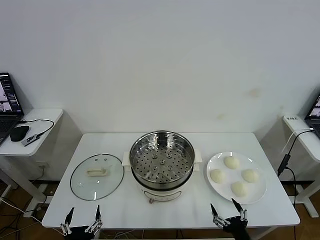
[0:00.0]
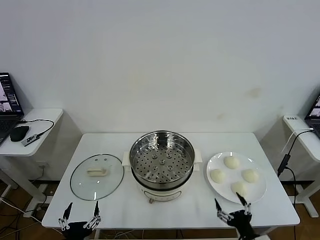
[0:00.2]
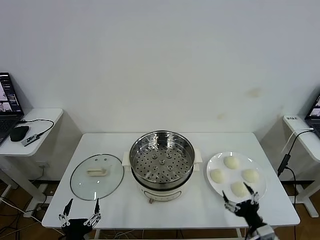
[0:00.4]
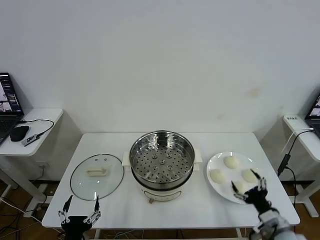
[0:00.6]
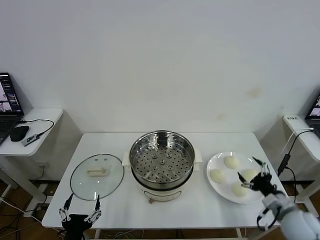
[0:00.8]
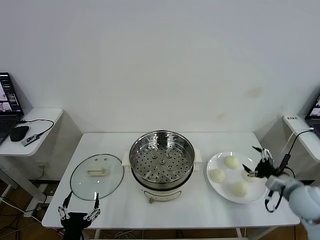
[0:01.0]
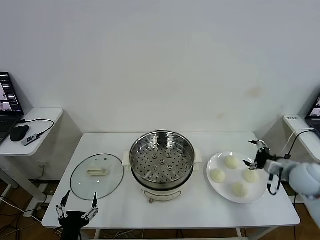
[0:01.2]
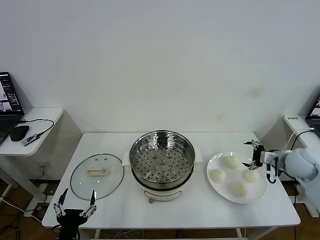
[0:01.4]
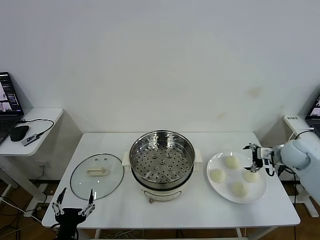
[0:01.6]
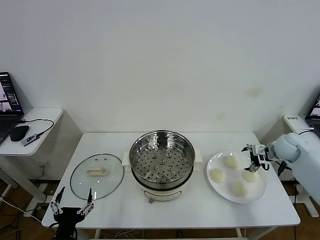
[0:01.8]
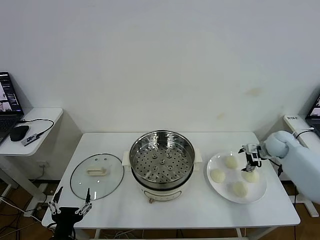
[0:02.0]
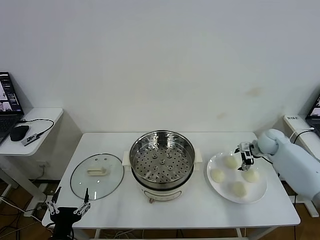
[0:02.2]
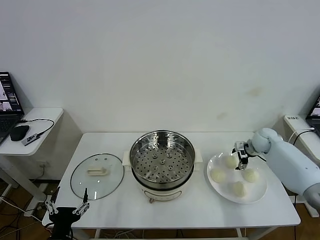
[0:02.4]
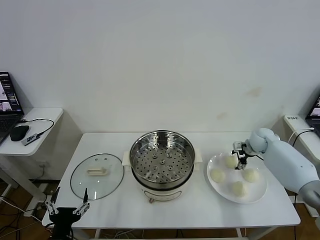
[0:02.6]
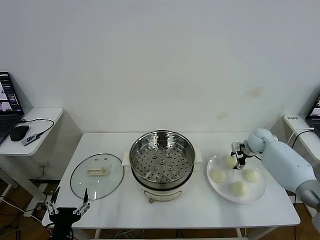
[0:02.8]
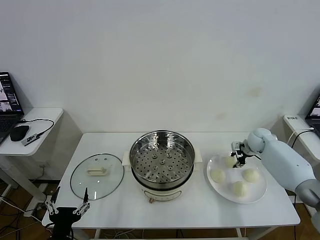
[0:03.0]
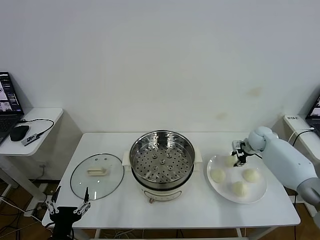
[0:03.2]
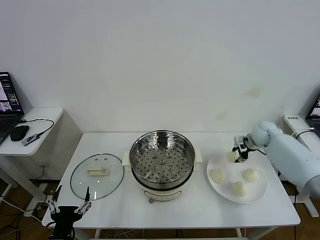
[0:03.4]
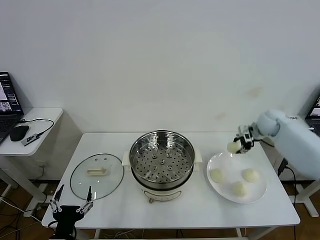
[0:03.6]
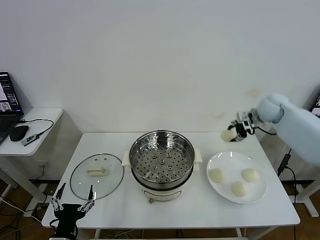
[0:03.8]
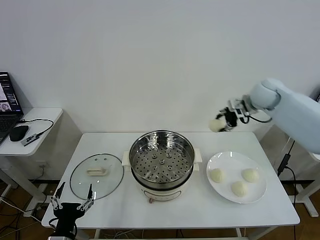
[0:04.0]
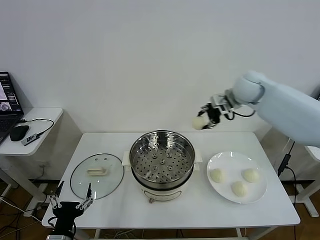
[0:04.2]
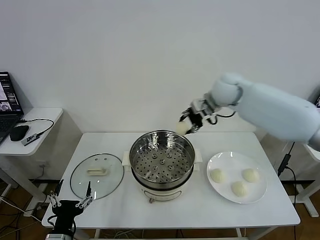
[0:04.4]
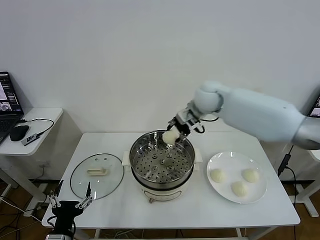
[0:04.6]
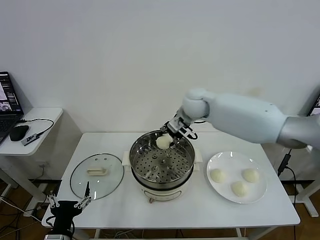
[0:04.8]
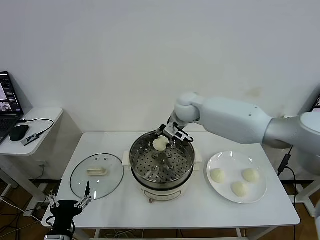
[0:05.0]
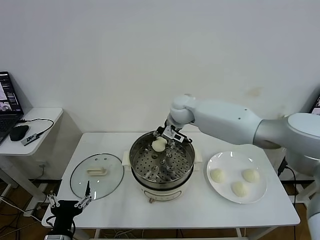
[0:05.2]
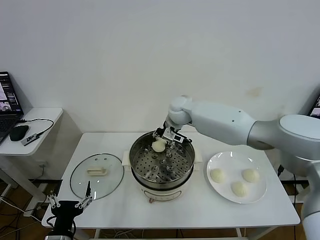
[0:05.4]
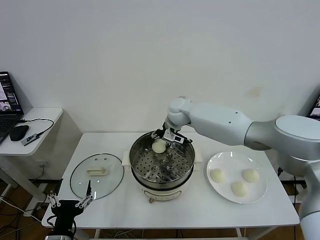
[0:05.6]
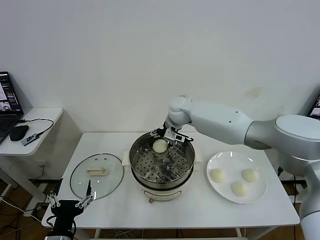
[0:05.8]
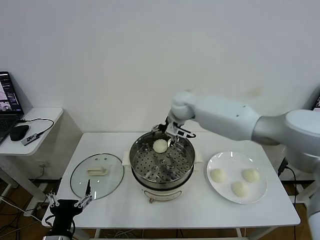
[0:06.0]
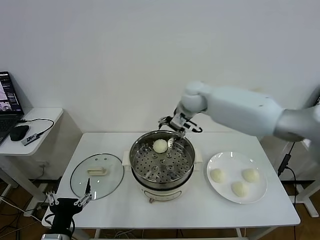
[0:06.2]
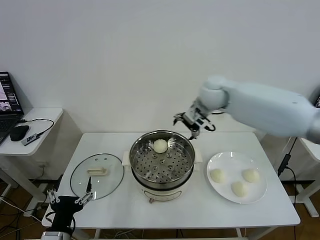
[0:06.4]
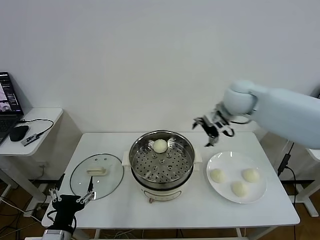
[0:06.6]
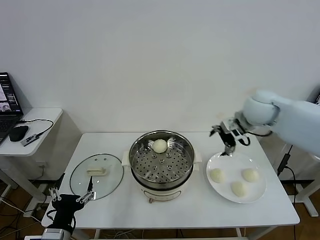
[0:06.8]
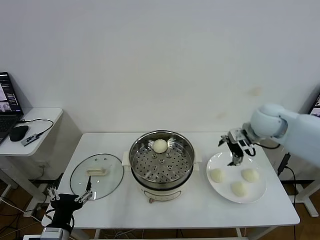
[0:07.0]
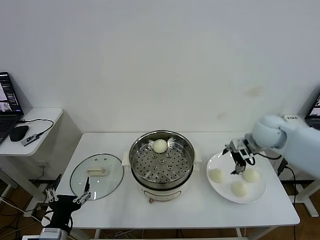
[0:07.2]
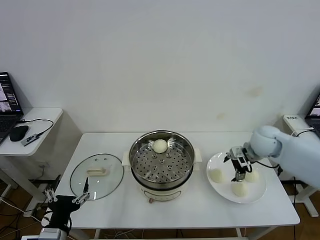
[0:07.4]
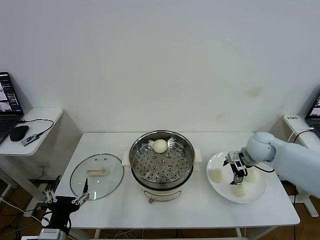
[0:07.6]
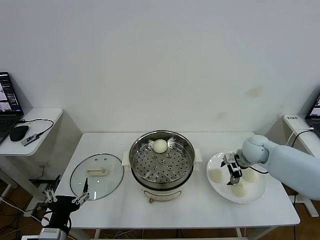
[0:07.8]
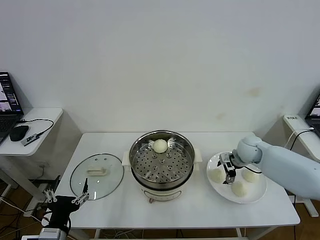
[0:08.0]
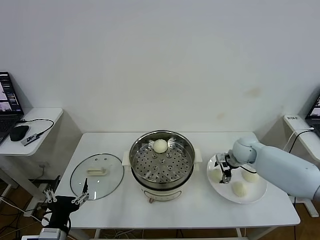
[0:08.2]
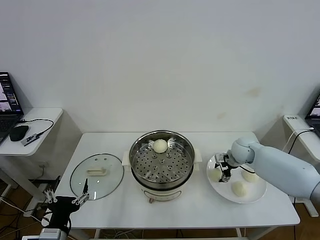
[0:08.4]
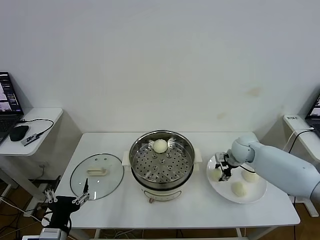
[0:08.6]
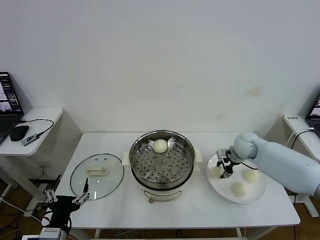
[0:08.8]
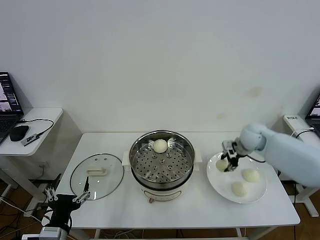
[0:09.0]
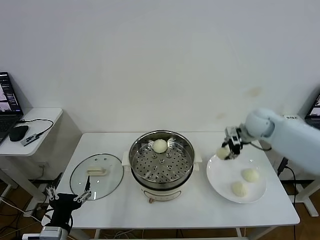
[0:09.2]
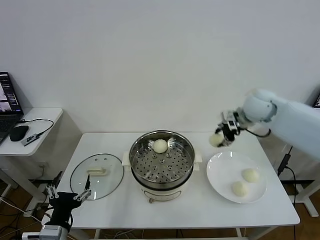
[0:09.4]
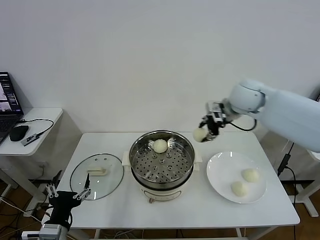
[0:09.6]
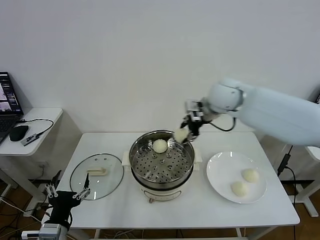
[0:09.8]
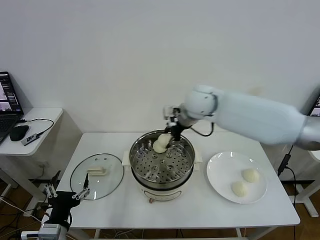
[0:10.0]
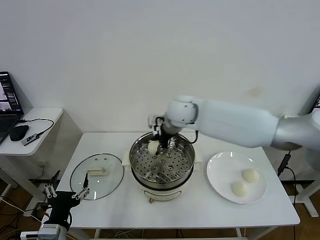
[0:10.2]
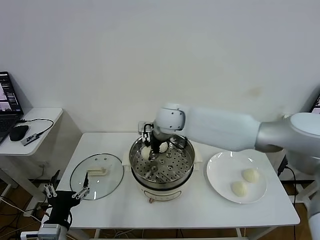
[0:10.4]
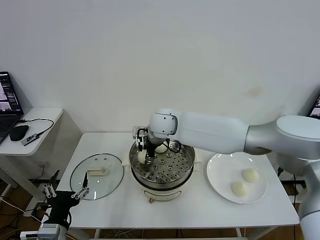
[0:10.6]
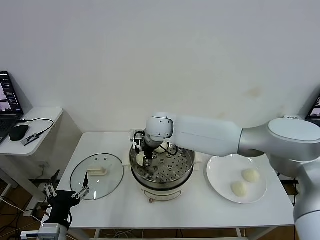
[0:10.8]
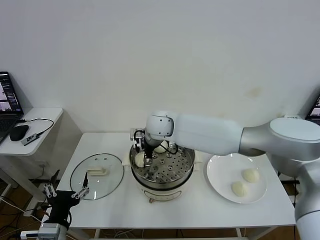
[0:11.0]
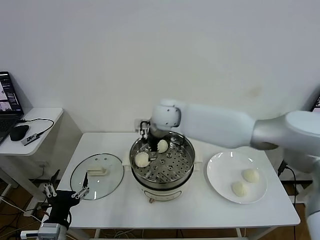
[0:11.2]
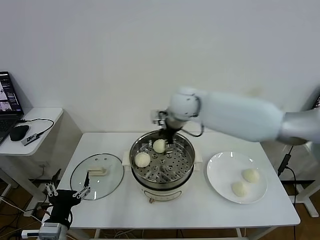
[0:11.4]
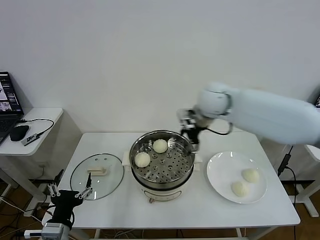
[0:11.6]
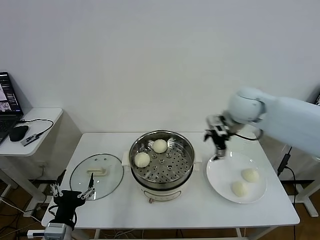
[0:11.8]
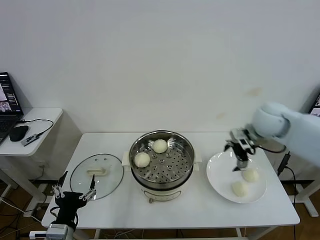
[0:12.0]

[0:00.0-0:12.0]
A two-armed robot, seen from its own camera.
Task of the whole recording: take steamed baozi put them in steamer then cover it.
Step, 0:00.0 to 0:02.8: Grasp the baozi in the plate with right gripper.
Step, 0:03.0 to 0:05.6: Place the baozi on the steamer with right gripper.
Step, 0:05.8 to 0:08.6: Grasp the baozi in the plate with right gripper.
Step, 0:08.8 to 0:11.0: Place the baozi on the steamer with right gripper.
0:01.6 to 0:03.0: The right gripper heads forward, downward and to the left, covering some 15 cm, and closes.
0:03.0 to 0:04.4: The right gripper moves upward and to the left, roughly 30 cm.
0:04.4 to 0:06.0: The right gripper moves to the left and downward, roughly 15 cm, and opens its fingers.
0:06.0 to 0:07.6: The right gripper goes approximately 30 cm to the right and backward.
0:07.6 to 0:09.0: The right gripper closes its fingers.
0:09.0 to 0:10.4: The right gripper shifts some 30 cm to the left.
0:10.4 to 0:12.0: The right gripper is displaced to the right by some 30 cm, and opens.

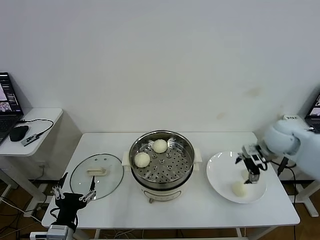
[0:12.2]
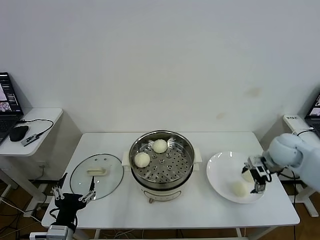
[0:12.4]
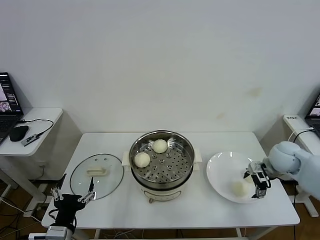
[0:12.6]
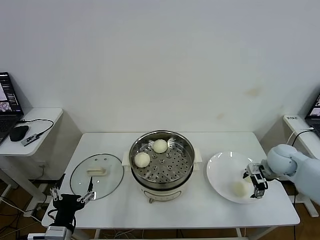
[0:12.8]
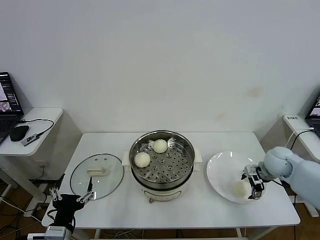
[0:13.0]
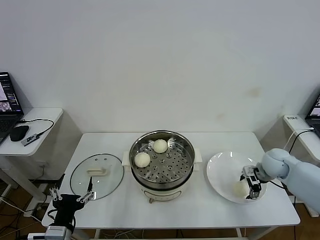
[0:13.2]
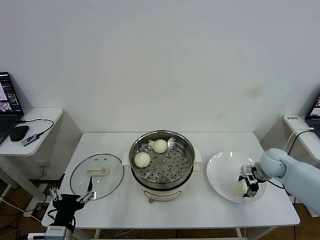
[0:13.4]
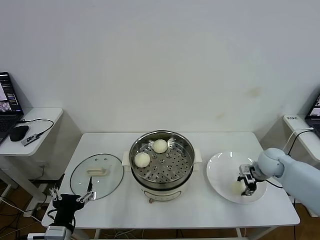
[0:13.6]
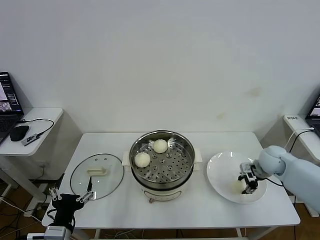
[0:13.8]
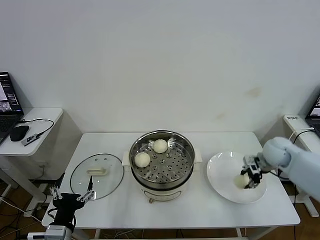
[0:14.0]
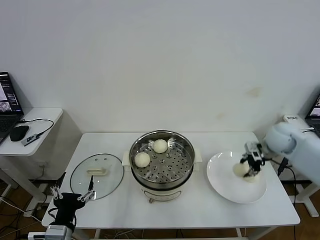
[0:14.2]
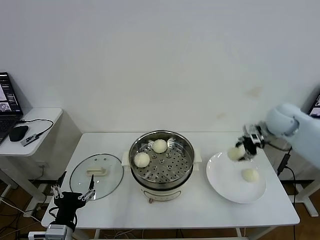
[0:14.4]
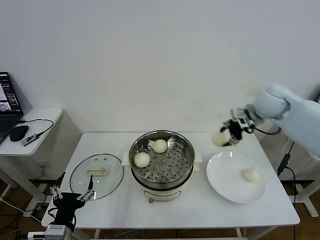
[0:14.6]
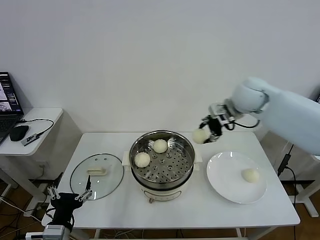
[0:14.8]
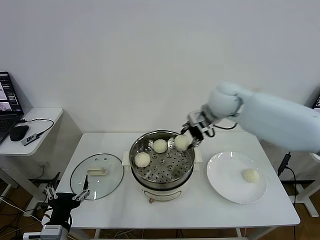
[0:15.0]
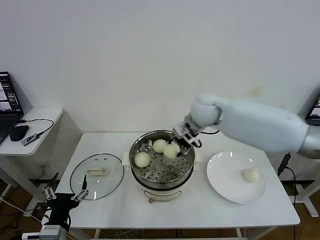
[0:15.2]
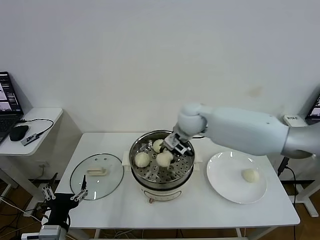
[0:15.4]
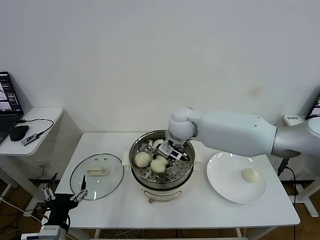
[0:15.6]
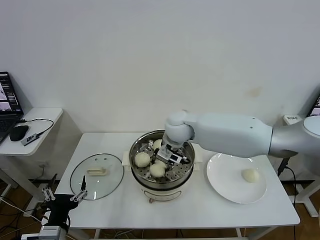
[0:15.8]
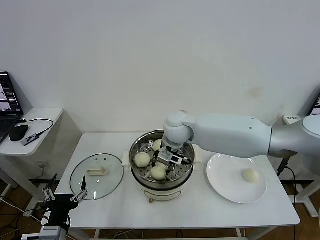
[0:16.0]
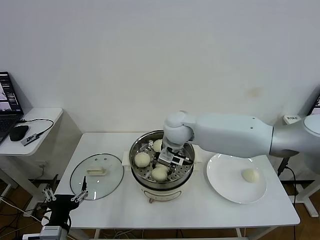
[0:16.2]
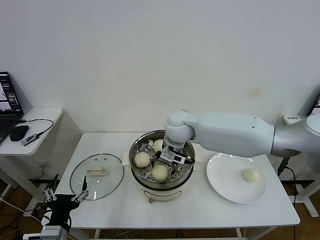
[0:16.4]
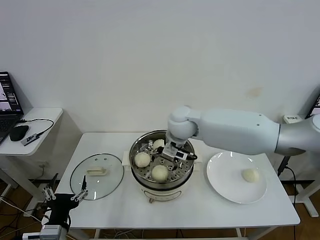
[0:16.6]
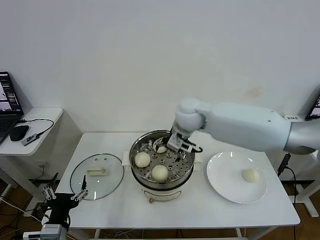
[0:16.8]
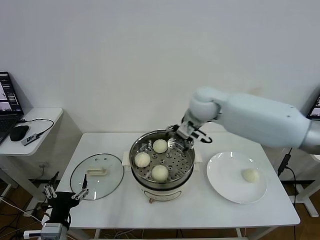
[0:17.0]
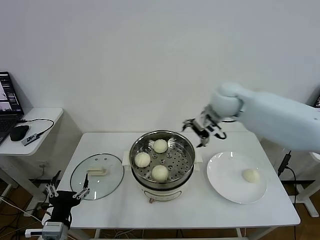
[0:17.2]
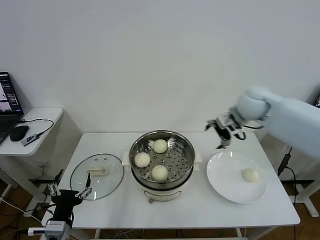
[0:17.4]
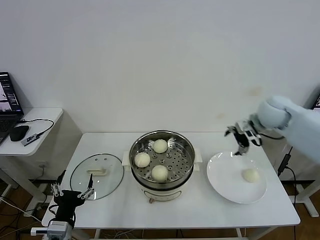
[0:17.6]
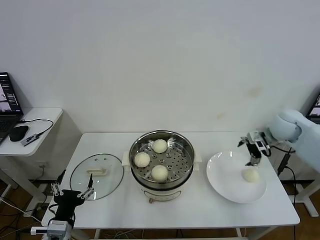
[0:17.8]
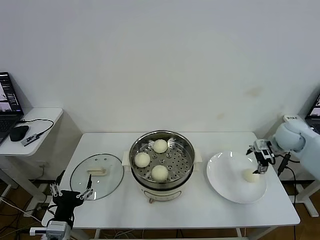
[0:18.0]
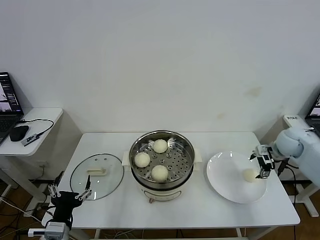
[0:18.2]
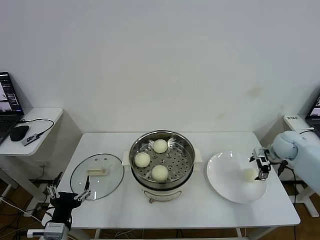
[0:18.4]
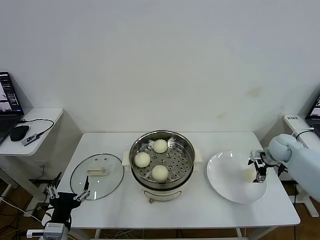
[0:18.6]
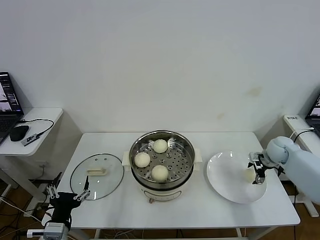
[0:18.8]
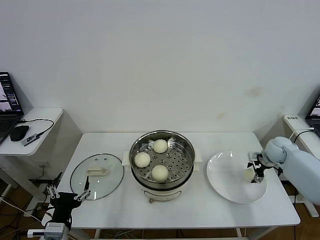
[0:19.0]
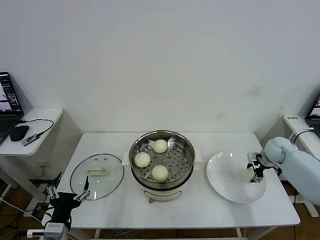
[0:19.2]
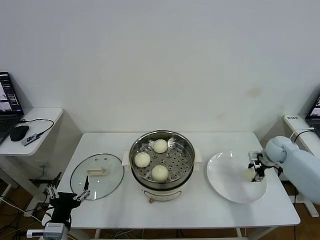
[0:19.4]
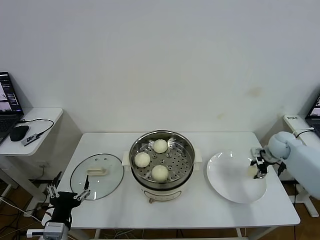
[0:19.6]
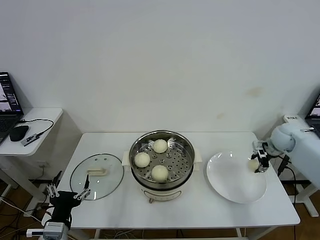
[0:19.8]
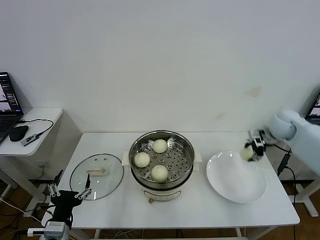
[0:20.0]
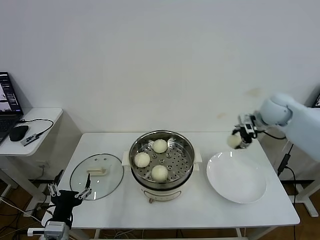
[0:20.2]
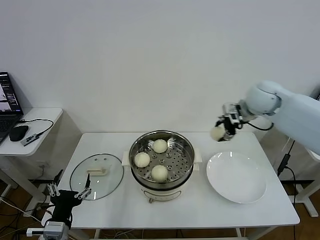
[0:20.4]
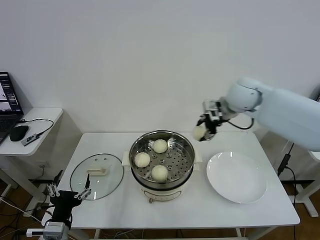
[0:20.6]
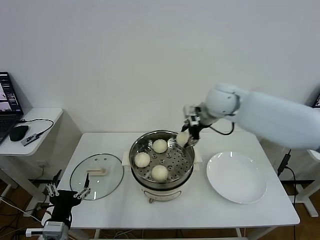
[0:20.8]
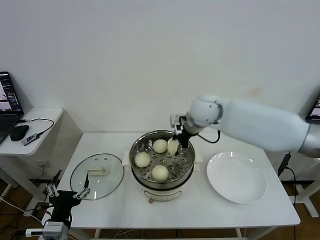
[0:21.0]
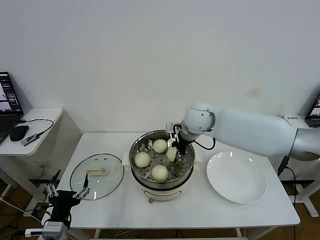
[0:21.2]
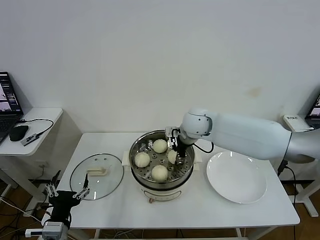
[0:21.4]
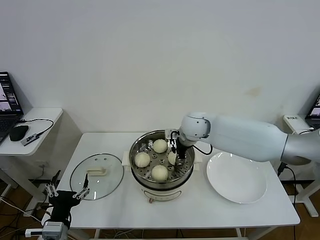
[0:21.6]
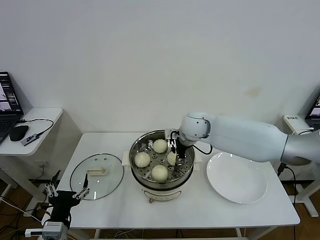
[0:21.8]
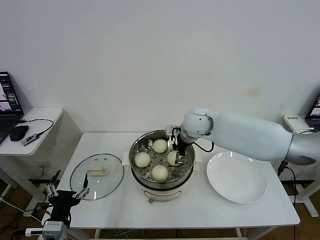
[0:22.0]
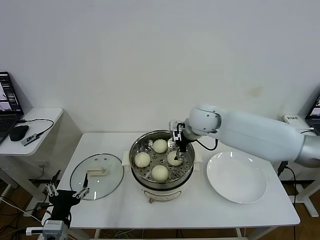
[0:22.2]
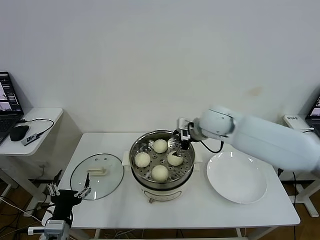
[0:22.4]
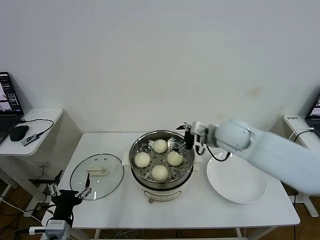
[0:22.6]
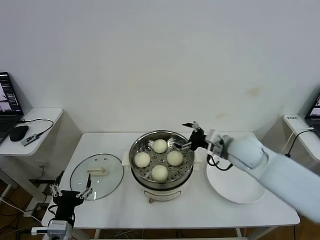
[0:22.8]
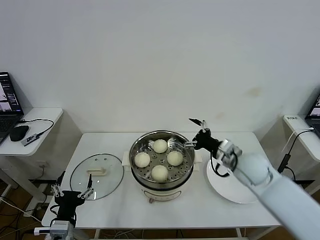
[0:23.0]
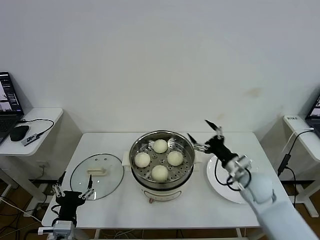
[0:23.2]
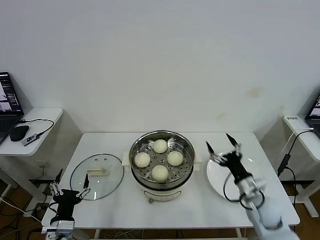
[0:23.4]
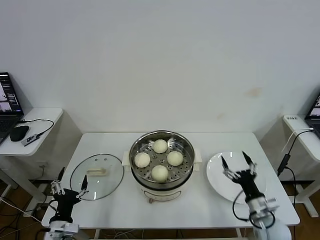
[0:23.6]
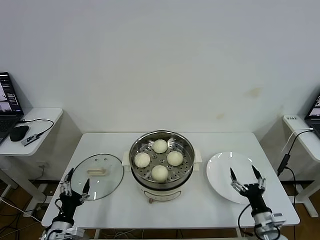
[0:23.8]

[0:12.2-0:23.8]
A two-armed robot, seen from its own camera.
Task of the whole recording: take steamed baozi put them in steamer then cover it.
Step, 0:12.2 to 0:13.6: Grasp the baozi in the plate with right gripper.
Step, 0:13.8 to 0:16.4: Place the baozi on the steamer with right gripper.
Step, 0:16.6 to 0:19.4: Grasp the baozi in the plate with right gripper.
Step, 0:19.6 to 0:21.8: Place the baozi on the steamer with right gripper.
0:12.2 to 0:13.6: The right gripper moves downward, some 15 cm, and closes its fingers.
0:13.6 to 0:15.0: The right gripper moves upward and to the left, approximately 30 cm.
0:15.0 to 0:16.6: The right gripper travels to the left and downward by approximately 15 cm, and opens its fingers.
0:16.6 to 0:18.0: The right gripper heads to the right, covering approximately 35 cm.
0:18.0 to 0:19.4: The right gripper moves downward, about 10 cm, and closes up.
0:19.4 to 0:21.0: The right gripper moves to the left and upward, roughly 35 cm.
0:21.0 to 0:22.4: The right gripper opens.
0:22.4 to 0:23.8: The left gripper travels downward by about 10 cm, while the right gripper moves downward, backward and to the right, approximately 40 cm.
